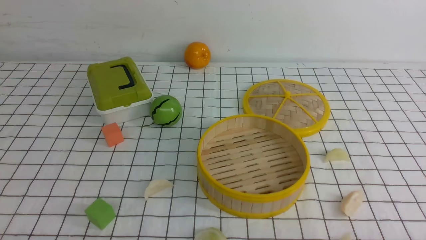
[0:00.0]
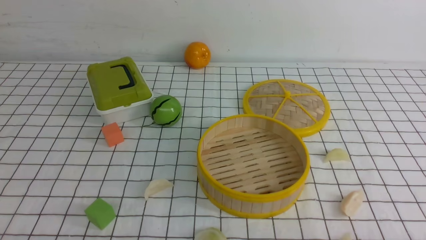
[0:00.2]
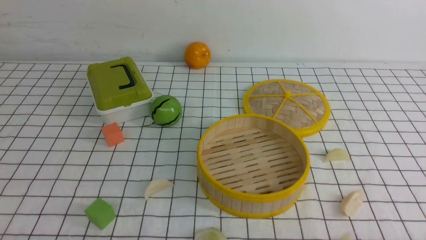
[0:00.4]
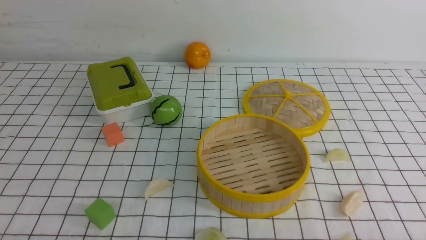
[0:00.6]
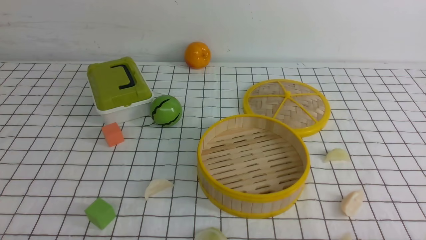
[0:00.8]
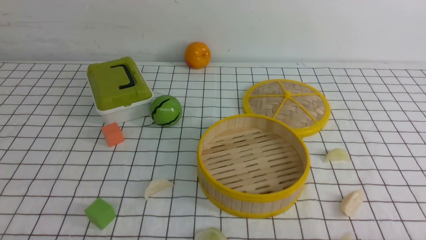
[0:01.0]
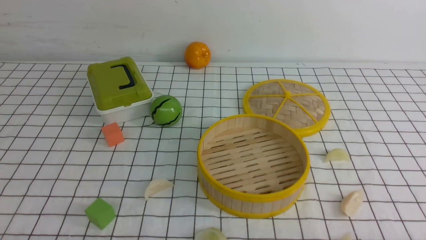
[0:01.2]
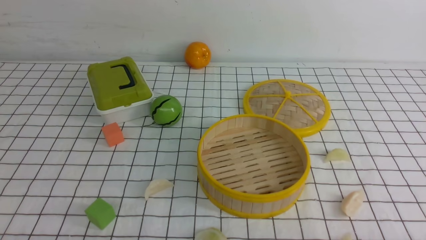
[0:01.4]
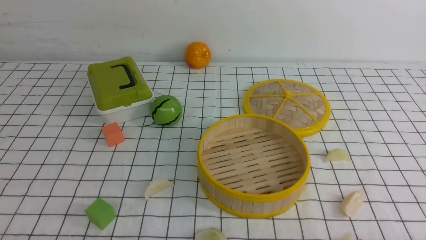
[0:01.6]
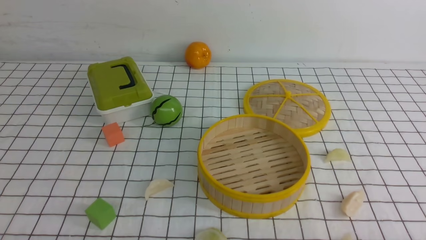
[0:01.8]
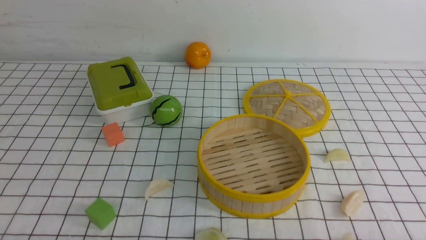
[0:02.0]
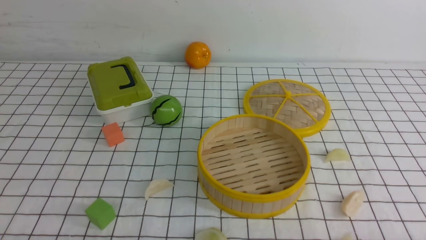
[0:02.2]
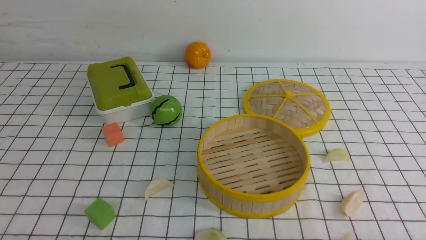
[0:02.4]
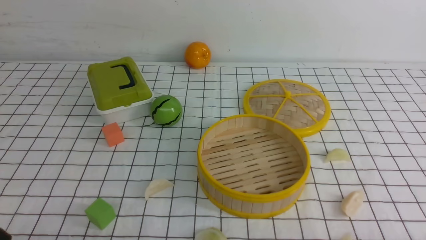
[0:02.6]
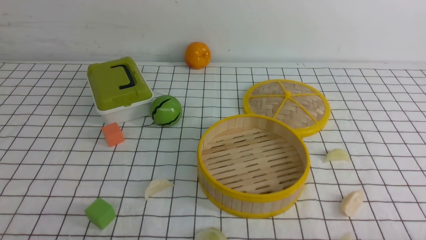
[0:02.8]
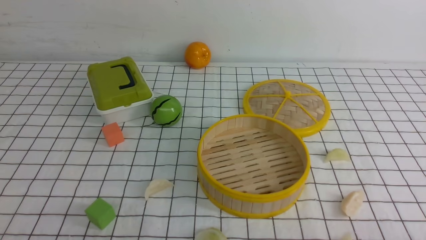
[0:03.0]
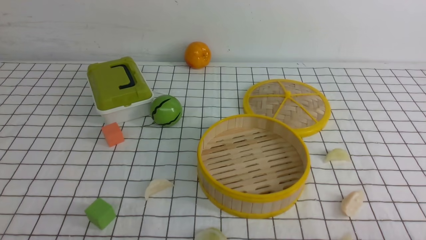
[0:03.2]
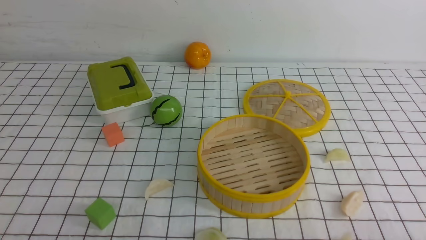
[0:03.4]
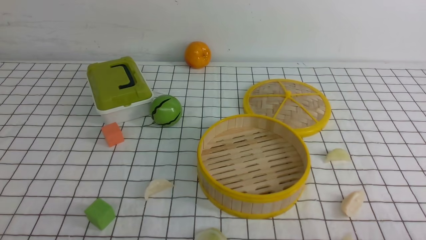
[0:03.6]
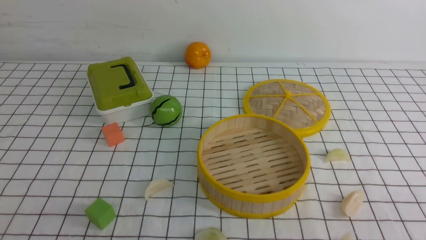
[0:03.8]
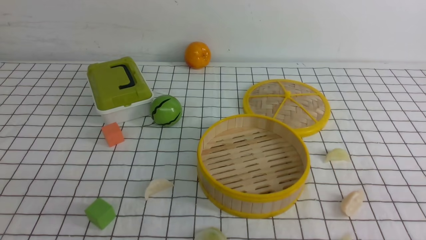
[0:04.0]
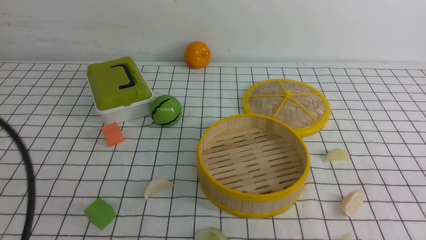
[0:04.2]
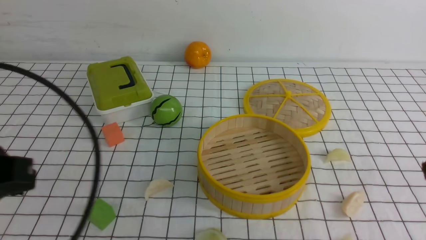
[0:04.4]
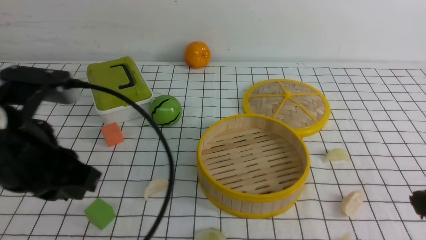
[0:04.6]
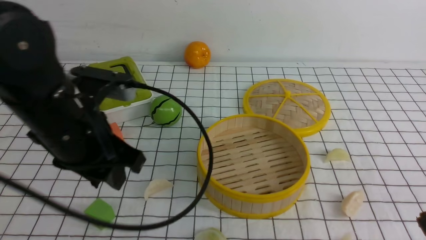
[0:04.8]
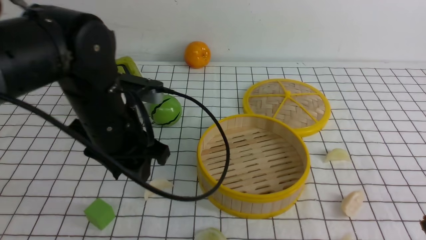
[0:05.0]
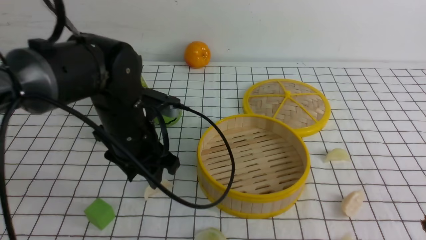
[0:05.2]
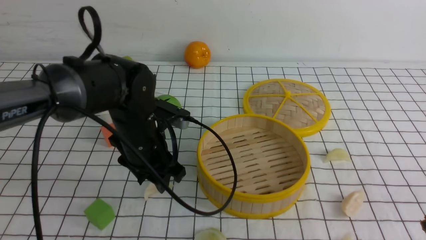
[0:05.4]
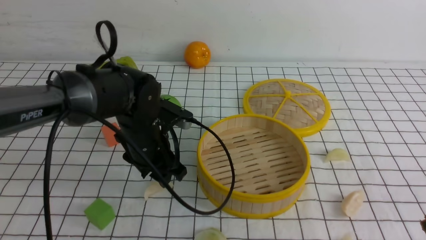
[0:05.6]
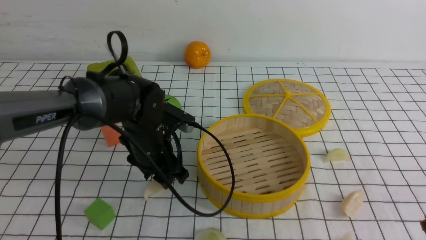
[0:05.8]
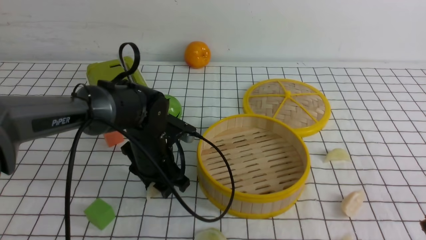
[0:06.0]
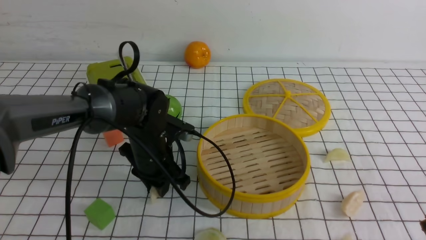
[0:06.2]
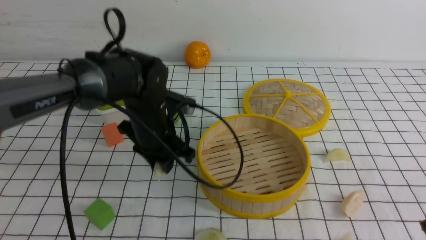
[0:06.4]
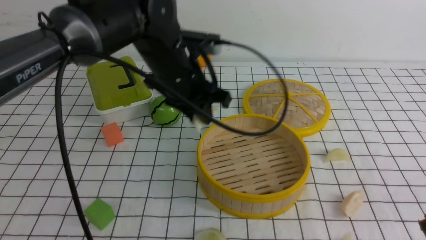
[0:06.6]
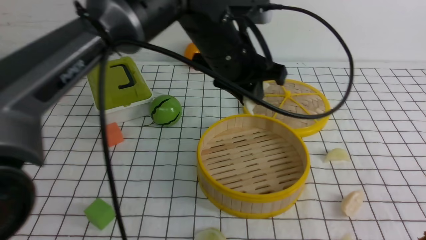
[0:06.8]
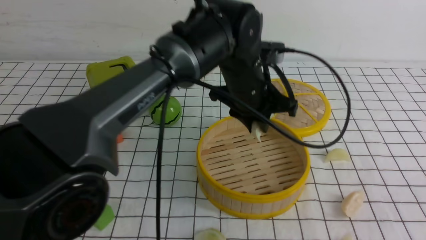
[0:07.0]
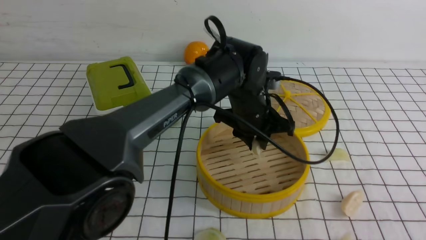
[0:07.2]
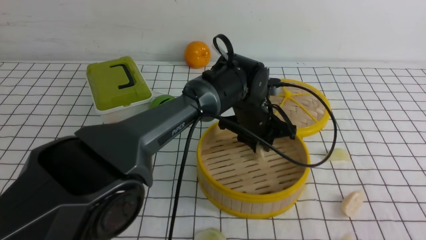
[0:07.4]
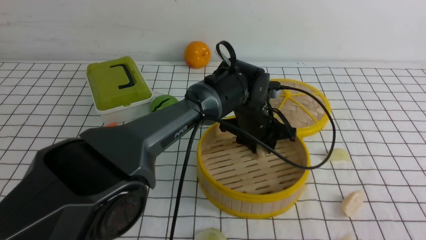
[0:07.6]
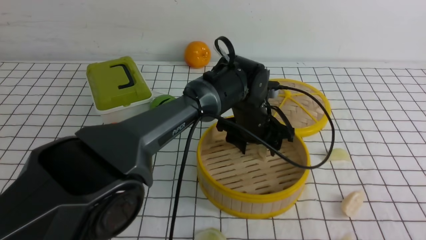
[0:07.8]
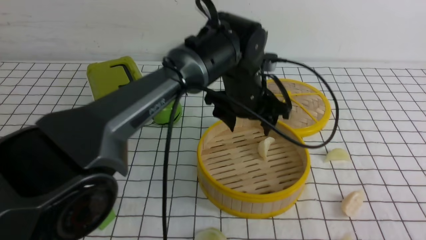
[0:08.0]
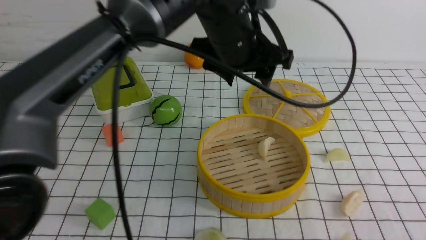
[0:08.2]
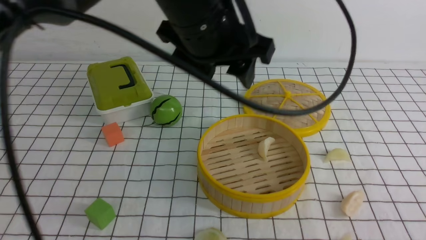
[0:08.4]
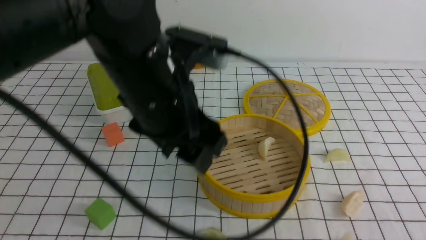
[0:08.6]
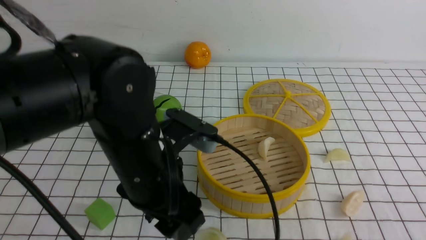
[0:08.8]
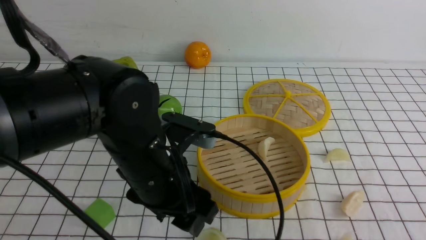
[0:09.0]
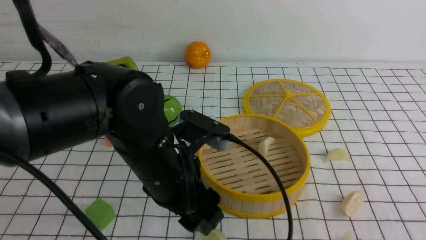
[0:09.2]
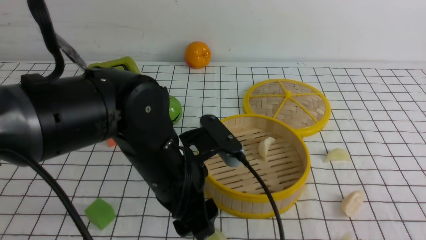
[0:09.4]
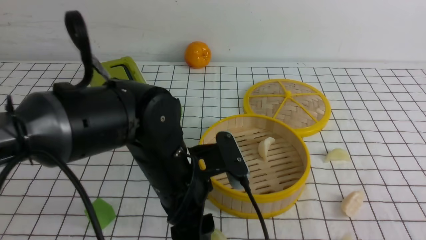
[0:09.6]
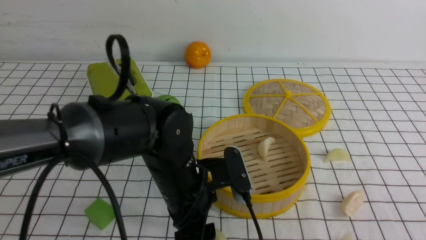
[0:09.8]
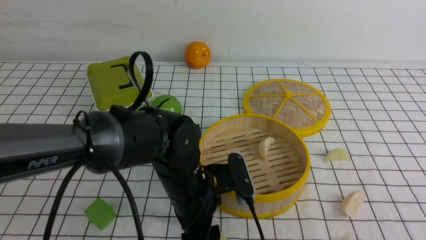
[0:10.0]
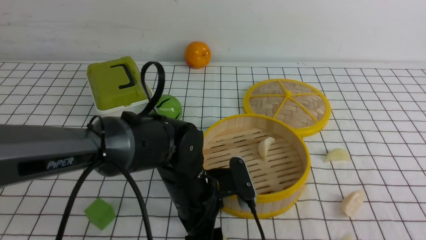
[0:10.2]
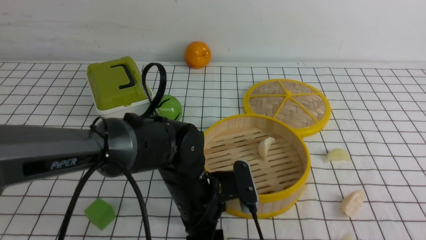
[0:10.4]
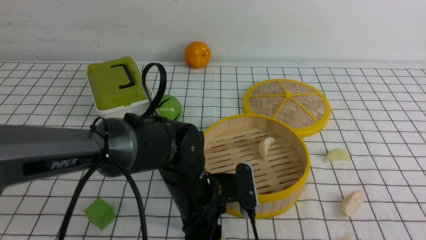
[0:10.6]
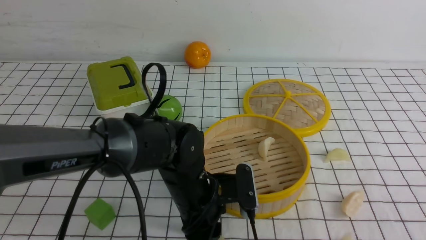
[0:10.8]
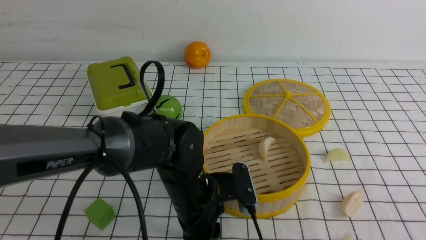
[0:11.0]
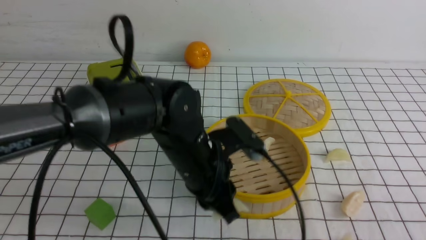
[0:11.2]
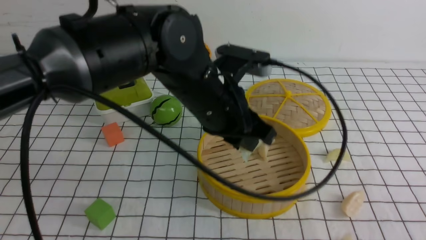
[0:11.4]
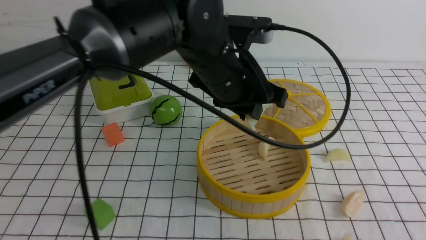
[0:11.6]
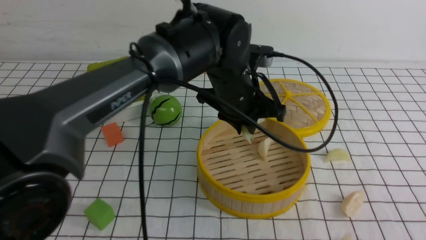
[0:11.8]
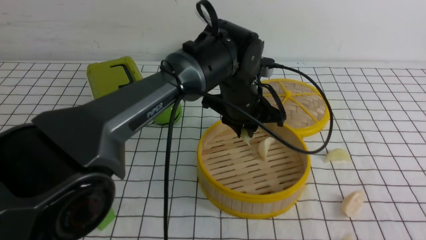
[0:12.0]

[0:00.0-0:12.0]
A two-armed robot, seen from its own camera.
Task of the whole recording: put the dumplings into the steamer on the table with the white tablecloth.
Step, 0:00.0 to 0:06.4: use the left arm to grab a dumpling.
Step, 0:06.6 to 0:08.0: use the left arm to put the dumpling into the steamer.
Step, 0:08.2 to 0:11.6: use the left arm to grab a dumpling.
0:00.0 to 0:01.6: Both grippers stay put.
0:03.0 to 0:04.4: The left gripper goes roughly 20 cm upward and forward.
0:04.4 to 0:06.0: The left gripper moves forward, downward and to the right, some 30 cm.
0:06.0 to 0:07.6: The left gripper shifts some 15 cm to the right. Meanwhile the right gripper goes roughly 10 cm backward.
0:07.6 to 0:09.0: The left gripper is displaced backward and to the left by some 25 cm.
0:09.0 to 0:10.4: The left gripper travels downward by about 10 cm.
0:10.4 to 0:12.0: The left gripper goes about 15 cm forward, upward and to the right, and closes its fingers.

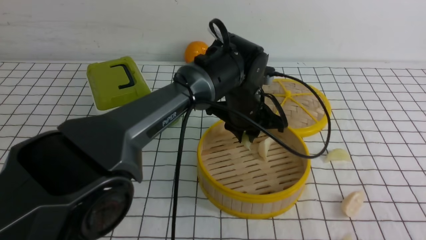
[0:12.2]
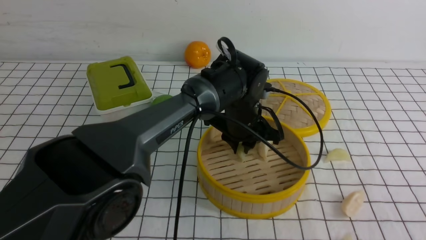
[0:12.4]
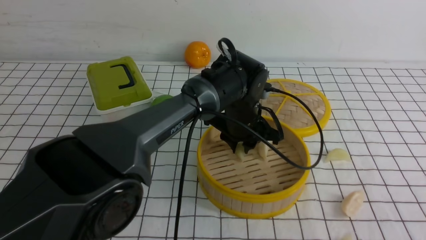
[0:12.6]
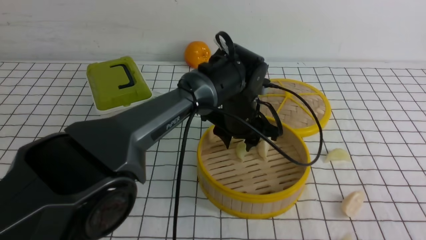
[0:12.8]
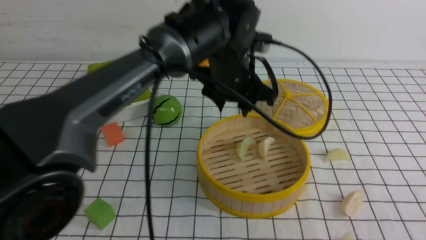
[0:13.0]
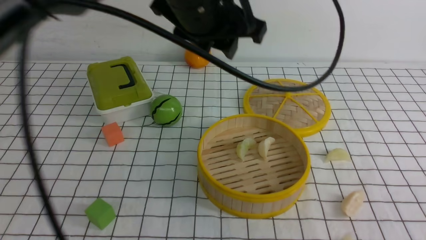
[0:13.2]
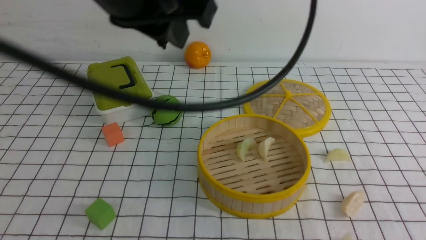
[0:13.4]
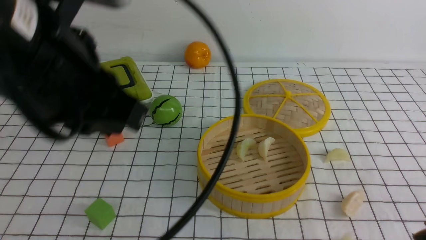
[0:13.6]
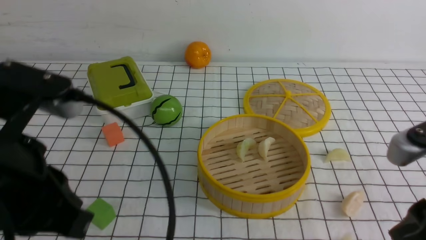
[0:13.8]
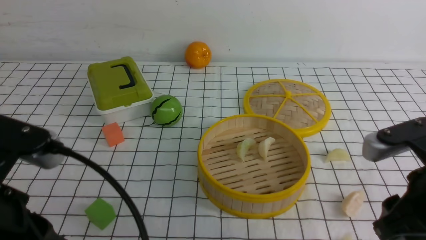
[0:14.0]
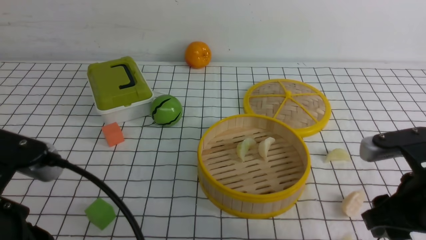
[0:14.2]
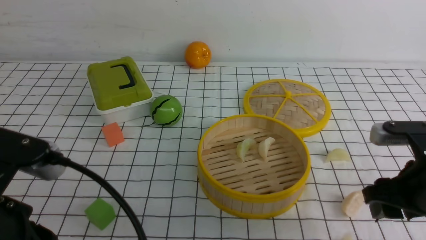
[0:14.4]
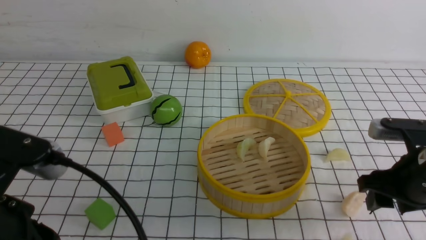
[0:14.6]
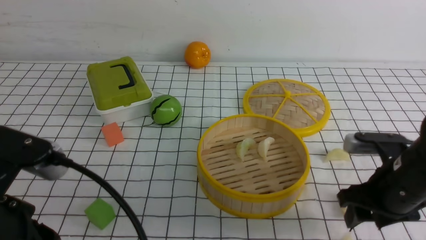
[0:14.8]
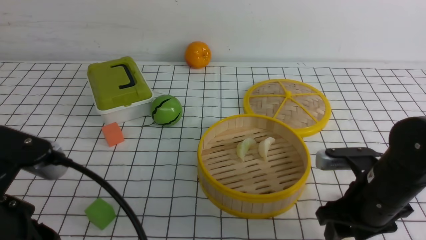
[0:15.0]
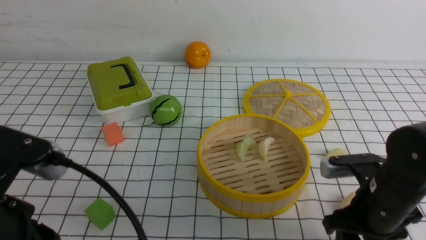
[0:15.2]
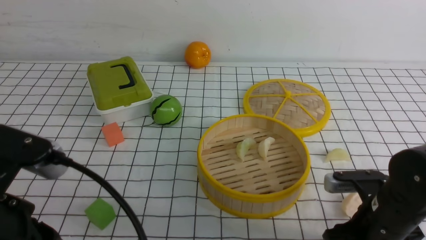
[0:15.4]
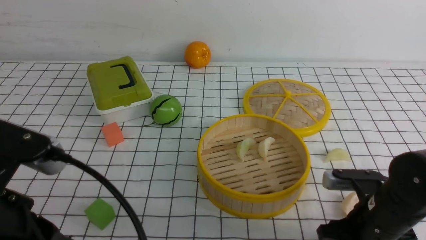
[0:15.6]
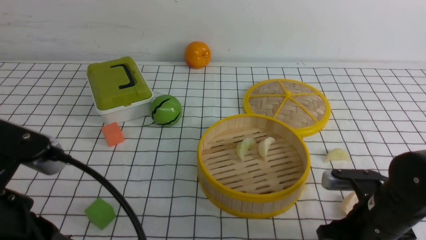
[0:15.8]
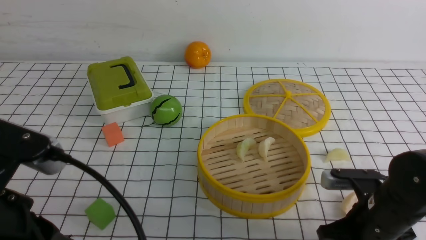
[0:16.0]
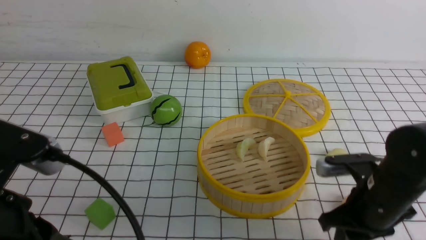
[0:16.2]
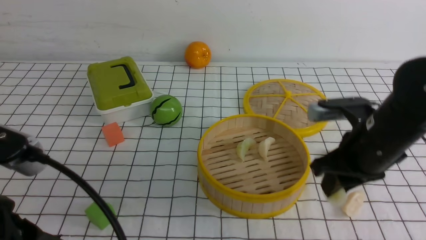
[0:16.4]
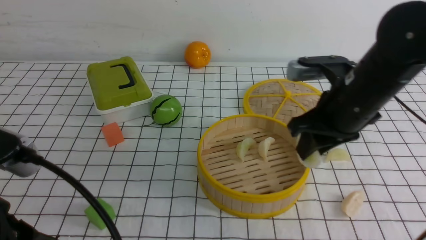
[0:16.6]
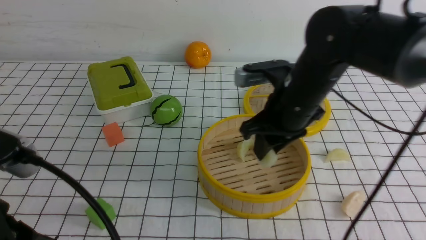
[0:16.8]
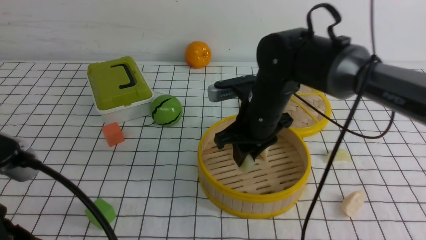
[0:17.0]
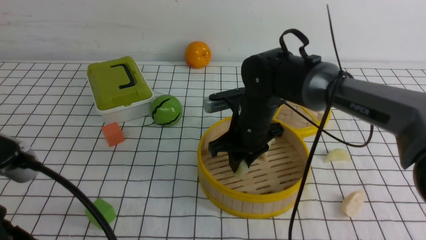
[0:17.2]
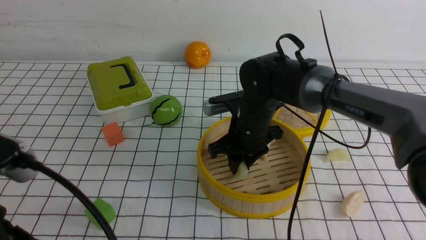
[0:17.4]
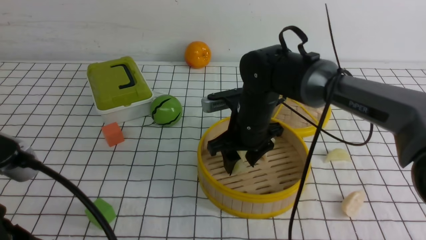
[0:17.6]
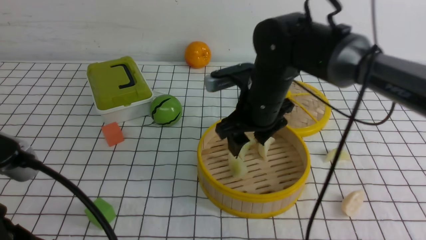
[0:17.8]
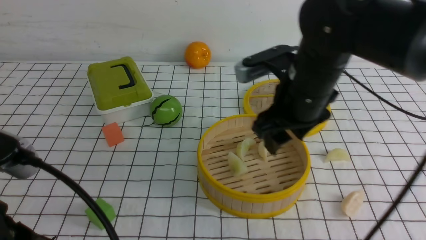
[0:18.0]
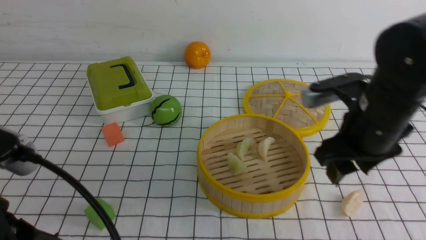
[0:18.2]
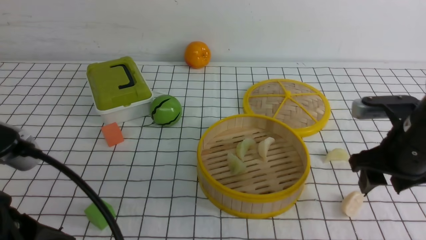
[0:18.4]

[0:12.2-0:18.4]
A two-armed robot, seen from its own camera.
Task of the whole recording: put the dumplings into the steamer on the table with the white tablecloth.
Step, 0:12.2 to 0:13.0: use the left arm to put the dumpling into the steamer.
Step, 0:13.2 to 0:16.2: use the right arm to grab a dumpling.
Step, 0:16.4 to 0:18.0: use the right arm to put the dumpling into the steamer.
0:12.2 to 0:13.8: The left gripper is displaced backward, to the left and upward by about 35 cm, and opens, then closes again. The right gripper heads forward, covering some 10 cm.
0:13.8 to 0:15.4: The right gripper moves downward and forward, about 15 cm, while the left gripper shifts by some 5 cm.
0:15.4 to 0:16.8: The right gripper shifts some 20 cm forward, to the left and upward, and closes up.
0:16.8 to 0:18.4: The right gripper is displaced to the right and backward by some 15 cm, and opens its fingers.
